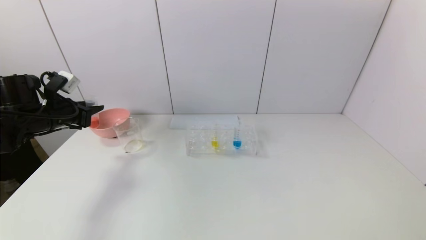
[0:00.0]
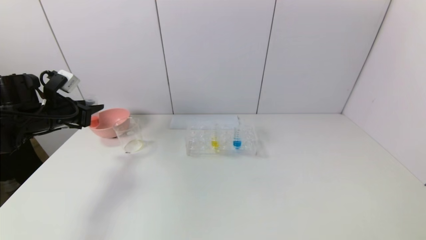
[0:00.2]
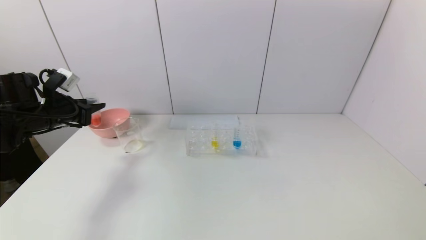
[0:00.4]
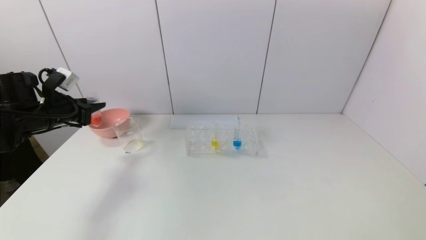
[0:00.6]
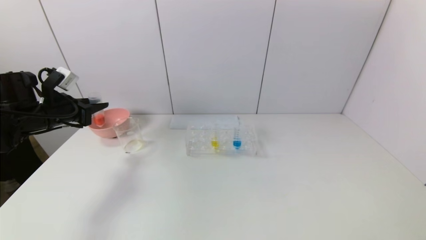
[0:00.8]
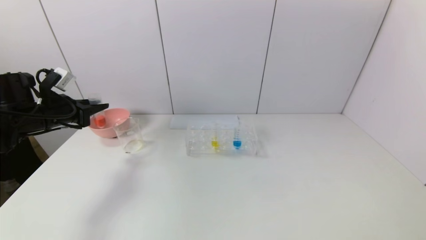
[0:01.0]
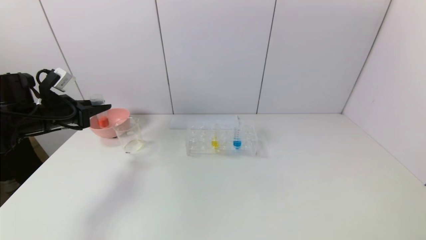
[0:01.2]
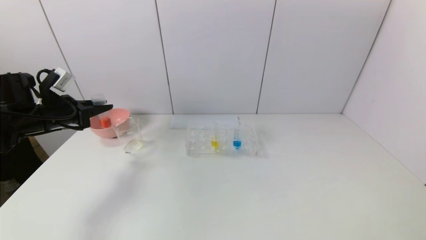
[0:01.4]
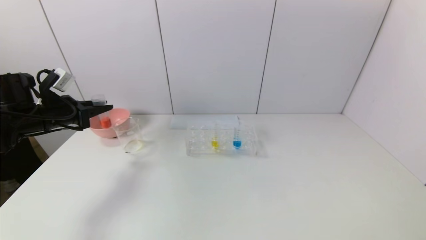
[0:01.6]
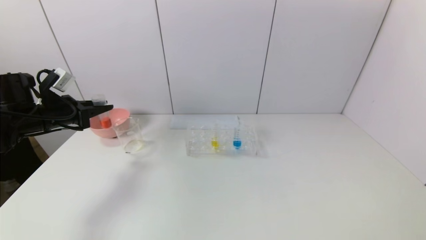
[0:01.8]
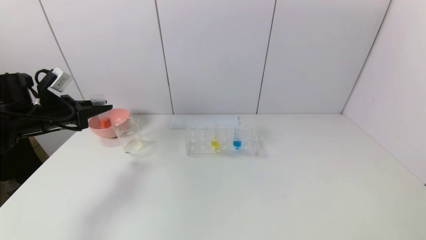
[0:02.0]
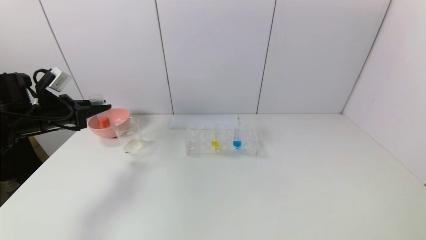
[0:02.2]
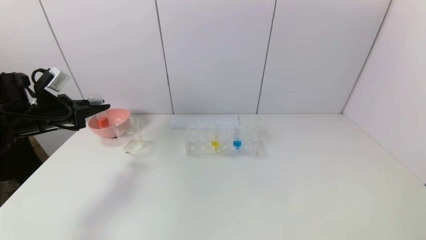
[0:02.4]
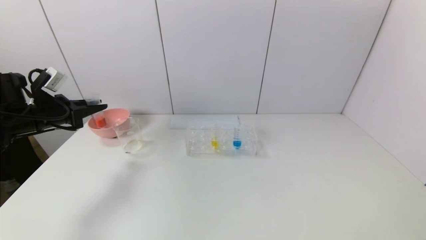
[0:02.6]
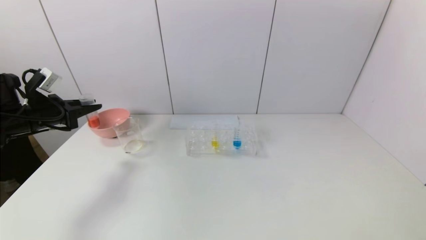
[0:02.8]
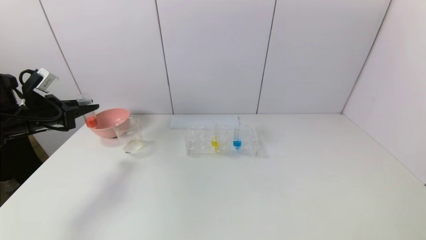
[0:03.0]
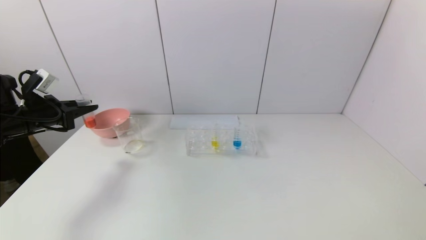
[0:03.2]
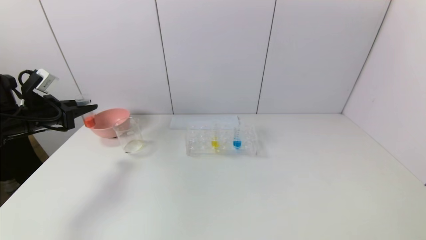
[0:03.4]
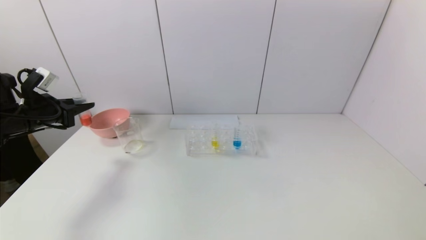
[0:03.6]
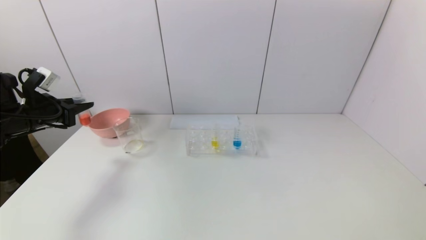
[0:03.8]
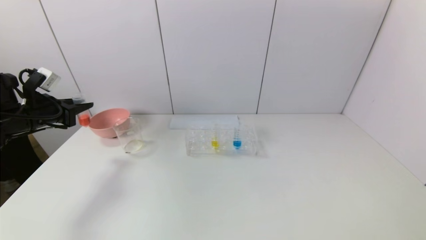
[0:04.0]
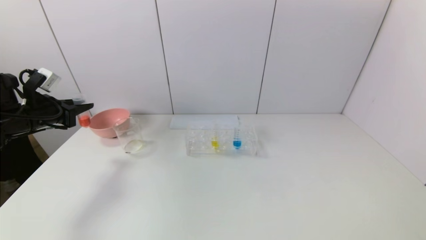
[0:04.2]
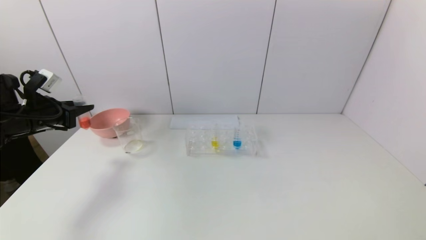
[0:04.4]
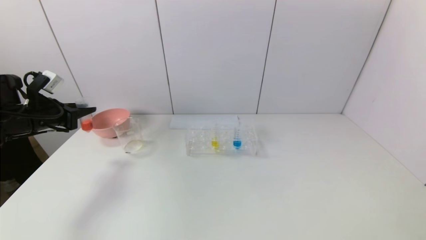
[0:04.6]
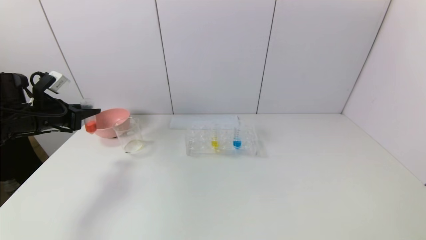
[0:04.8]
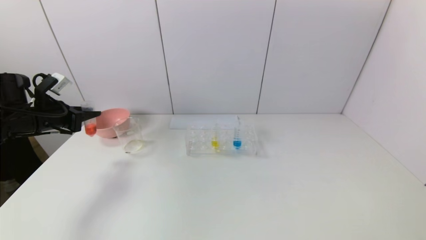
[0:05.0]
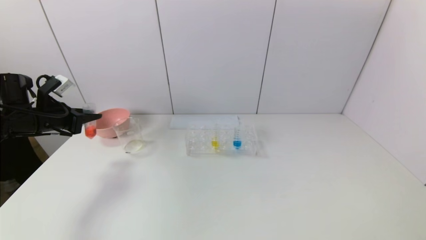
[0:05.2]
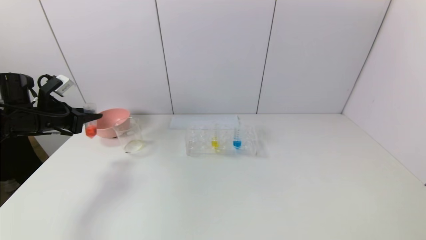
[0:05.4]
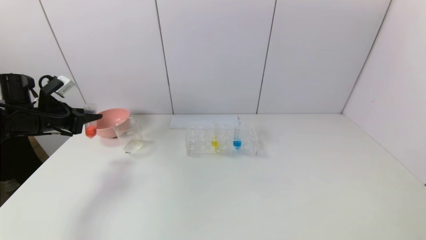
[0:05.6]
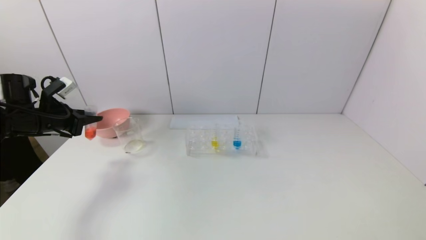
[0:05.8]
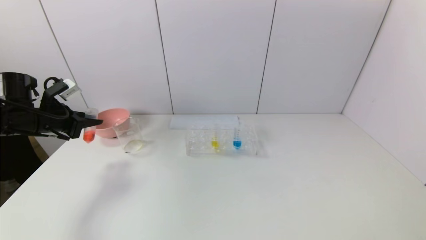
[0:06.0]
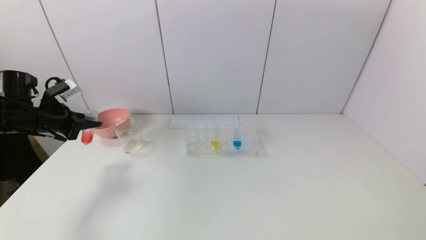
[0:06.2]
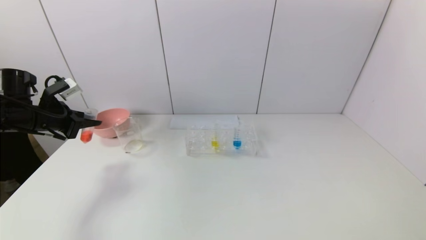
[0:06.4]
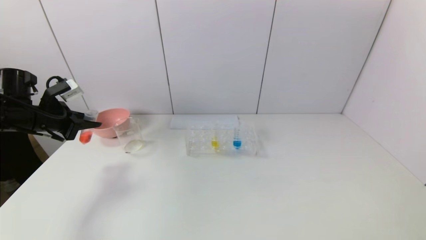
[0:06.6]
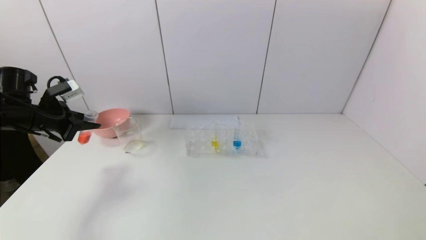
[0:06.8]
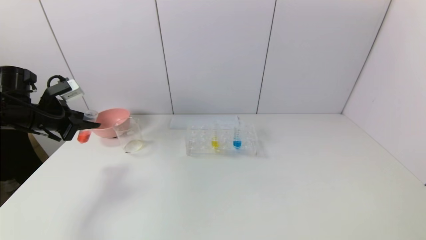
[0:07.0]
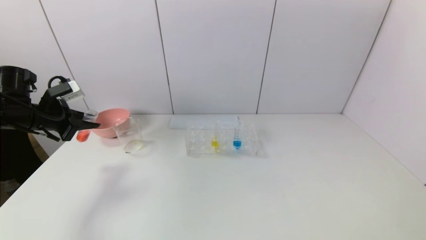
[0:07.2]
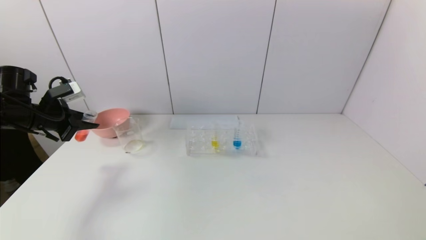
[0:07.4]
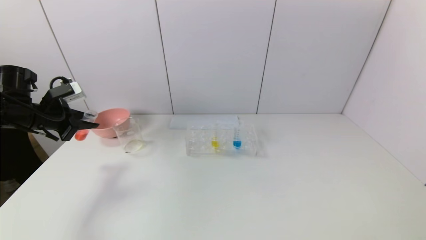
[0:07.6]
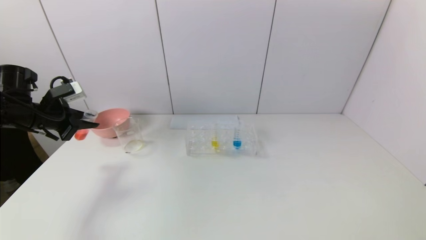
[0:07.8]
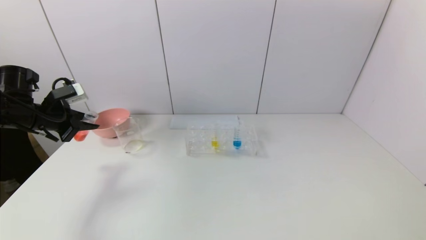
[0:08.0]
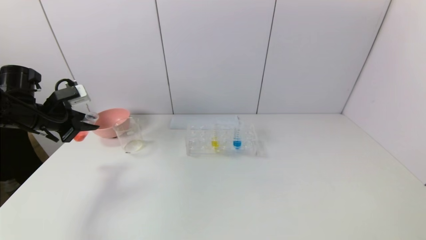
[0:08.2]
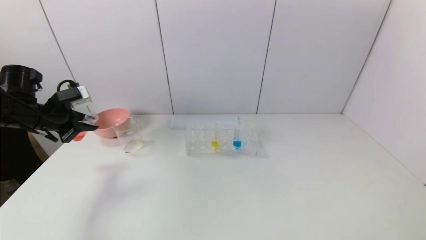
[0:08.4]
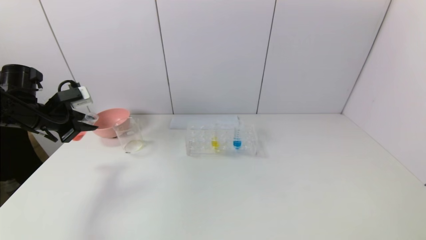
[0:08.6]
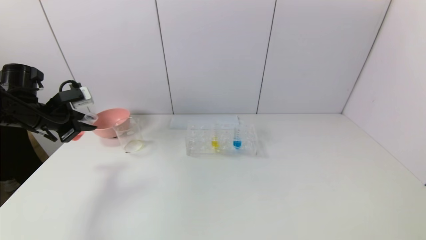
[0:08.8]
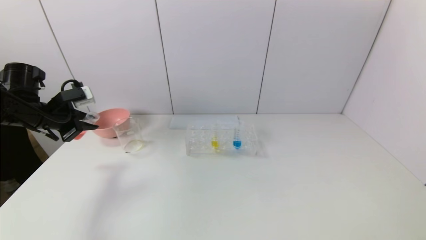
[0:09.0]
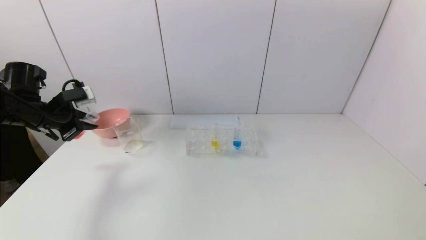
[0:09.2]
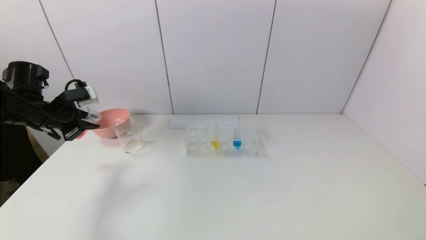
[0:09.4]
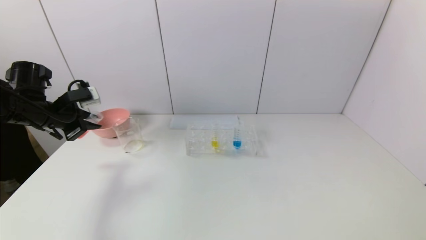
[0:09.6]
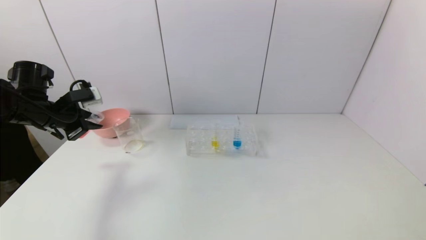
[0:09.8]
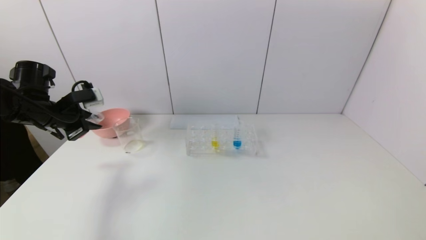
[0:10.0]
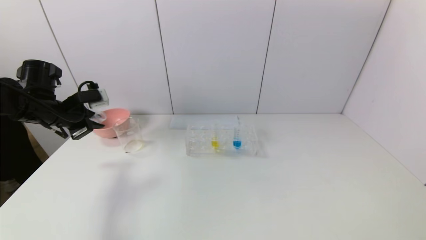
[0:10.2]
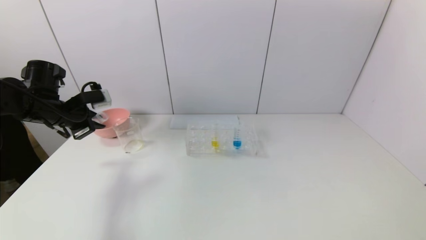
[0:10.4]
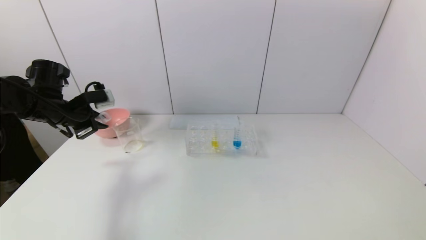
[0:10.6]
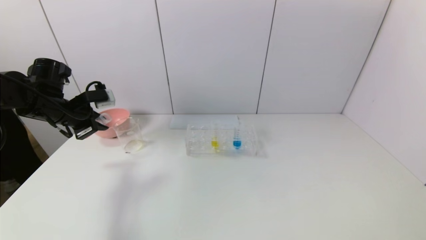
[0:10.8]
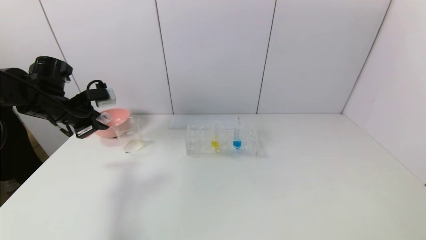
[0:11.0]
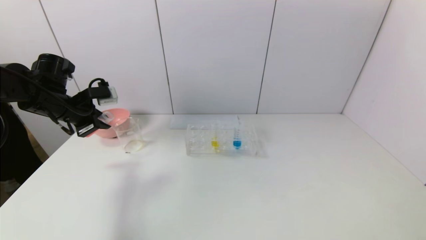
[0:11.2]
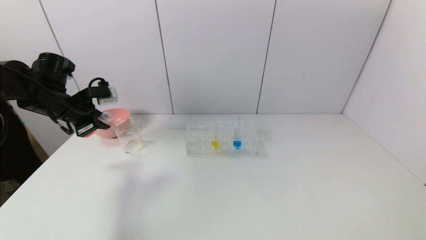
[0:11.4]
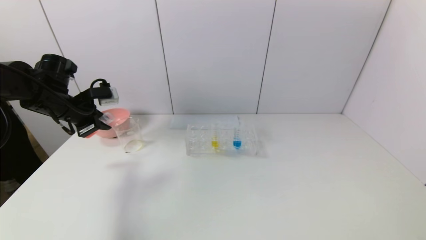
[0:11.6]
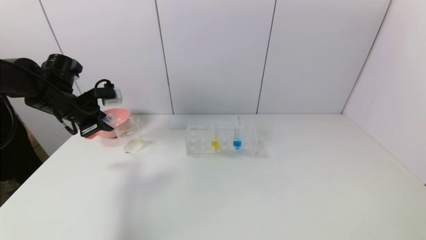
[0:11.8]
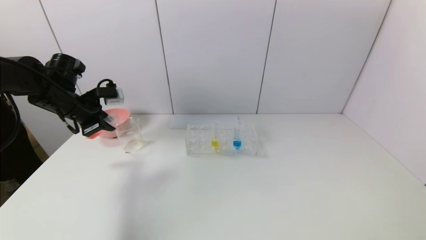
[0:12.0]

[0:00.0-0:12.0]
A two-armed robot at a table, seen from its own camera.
Task of the whole recording: pick up the test tube with yellow pigment and the test tube with red pigment by grippers and pour them into the beaker.
0:00.0 to 0:01.6: There are only small adjustments of the grippers.
0:01.6 to 0:06.0: The grippers move only a little.
0:06.0 to 0:07.6: The grippers make only small movements.
0:07.6 to 0:10.4: The grippers stay close to where they were, moving slightly.
0:10.4 to 0:12.0: The grippers make only small movements.

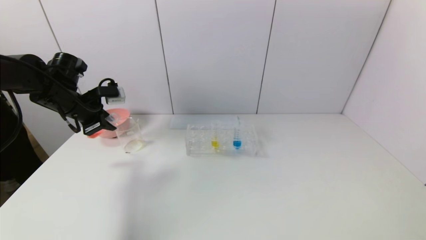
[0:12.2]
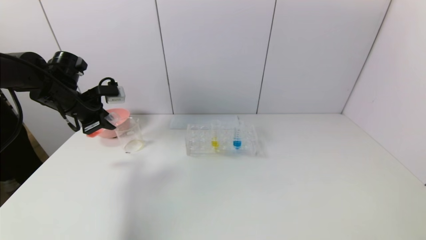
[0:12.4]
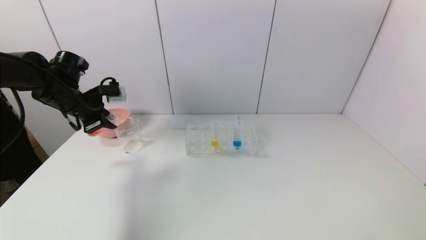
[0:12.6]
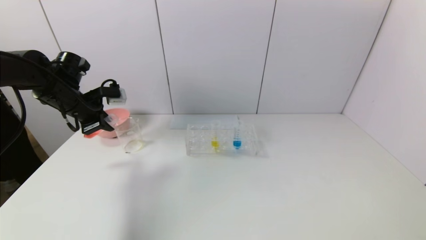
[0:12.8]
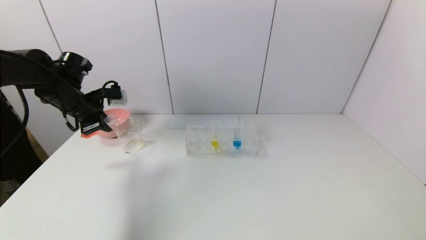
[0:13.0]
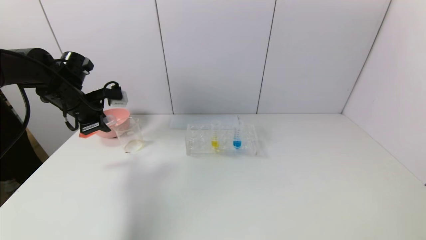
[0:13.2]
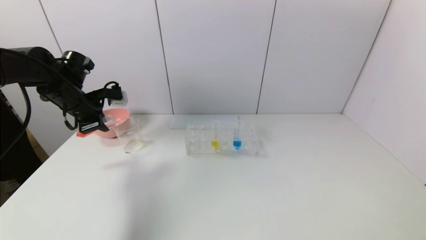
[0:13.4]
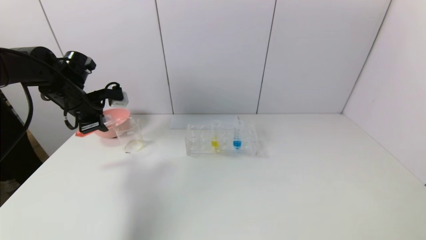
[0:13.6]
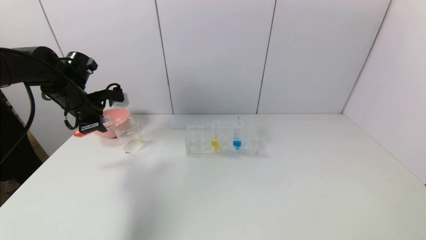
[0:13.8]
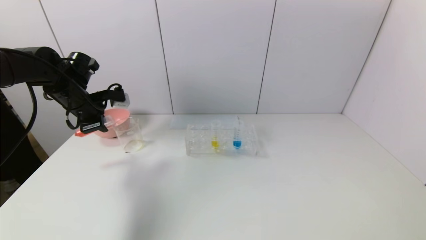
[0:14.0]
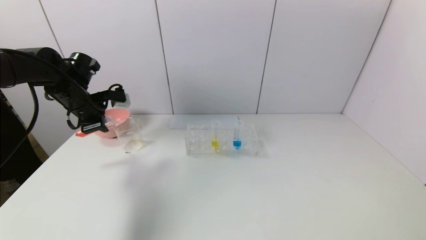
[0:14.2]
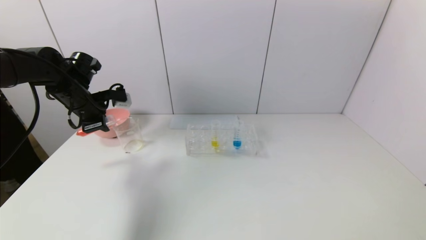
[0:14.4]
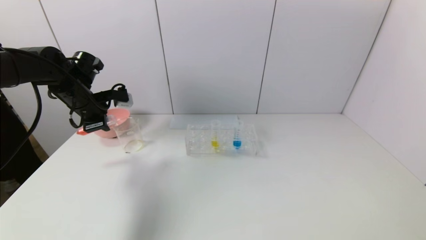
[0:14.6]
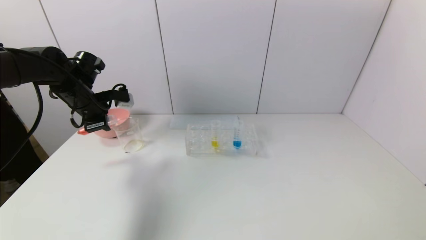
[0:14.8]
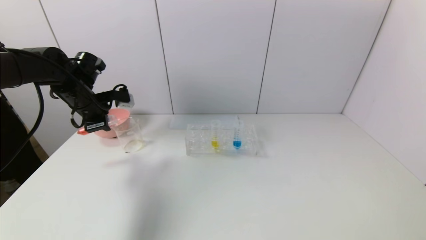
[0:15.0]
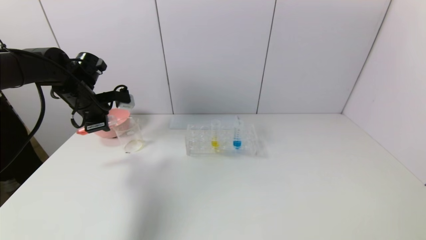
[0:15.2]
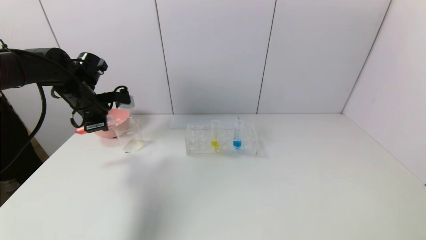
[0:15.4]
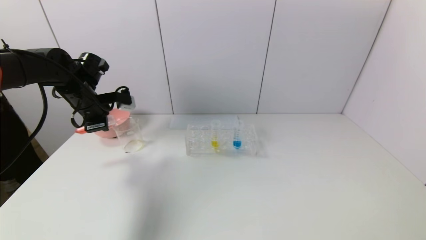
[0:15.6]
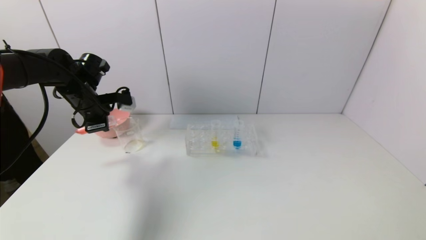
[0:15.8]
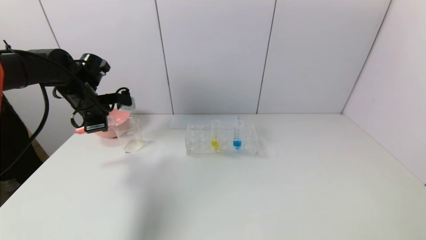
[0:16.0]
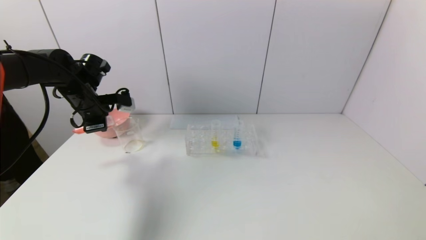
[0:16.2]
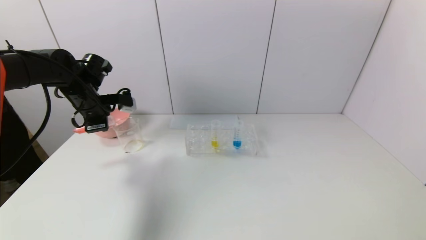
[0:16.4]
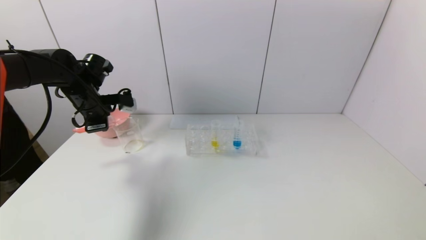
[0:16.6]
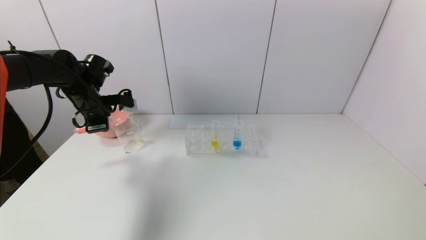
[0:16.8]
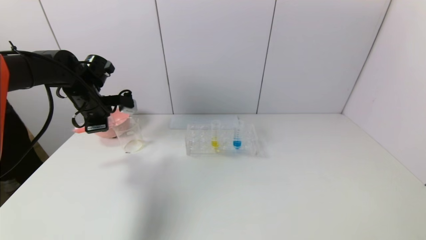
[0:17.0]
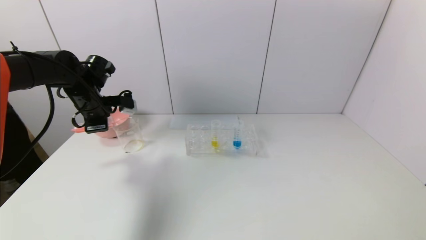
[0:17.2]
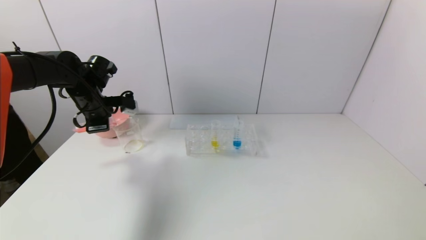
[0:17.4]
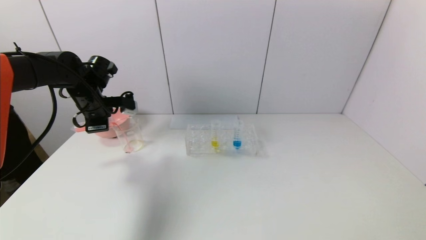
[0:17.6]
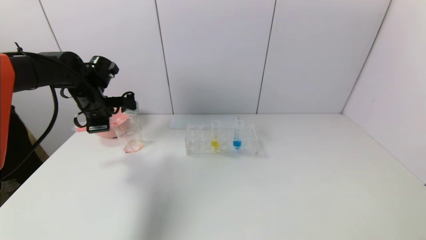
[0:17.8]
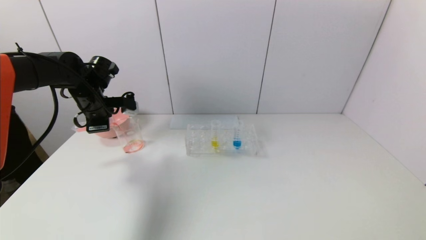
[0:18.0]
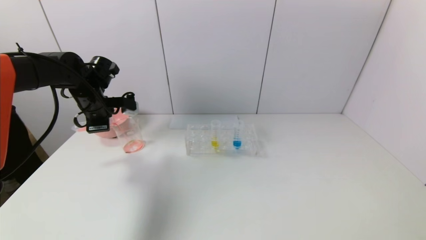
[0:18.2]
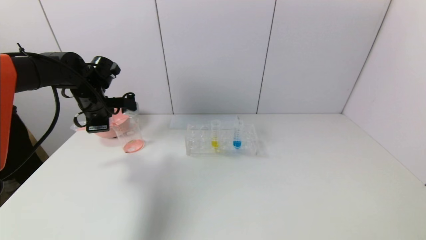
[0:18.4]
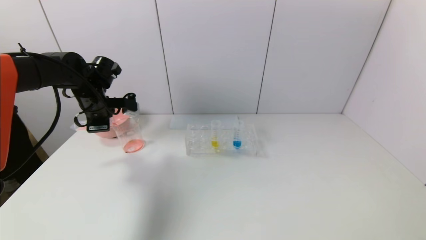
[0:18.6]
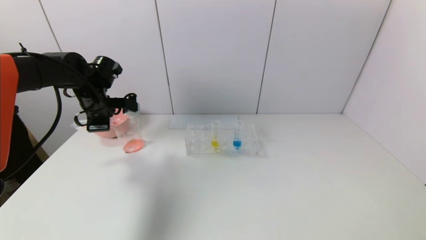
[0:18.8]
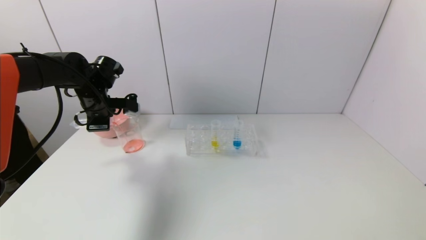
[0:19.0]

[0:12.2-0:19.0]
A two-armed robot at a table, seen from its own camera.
Task of the whole recording: pick up the test tube with yellow pigment and the test tube with red pigment by grippers and pour them into the beaker.
0:12.2 to 0:15.0: The grippers move only a little.
0:15.0 to 0:19.0: The grippers stay close to where they were, moving slightly.
